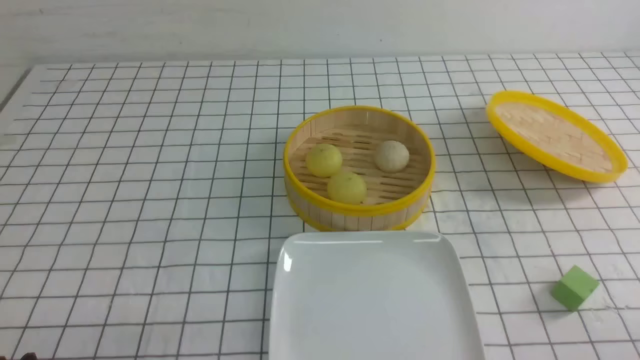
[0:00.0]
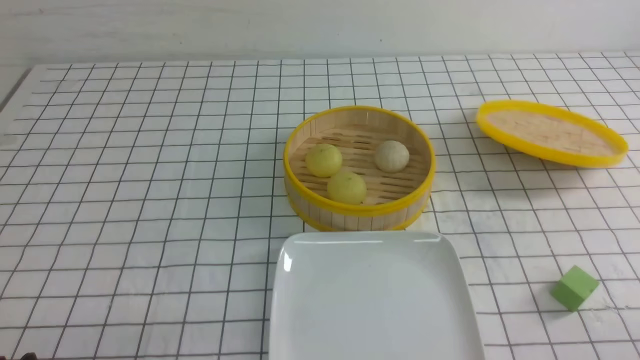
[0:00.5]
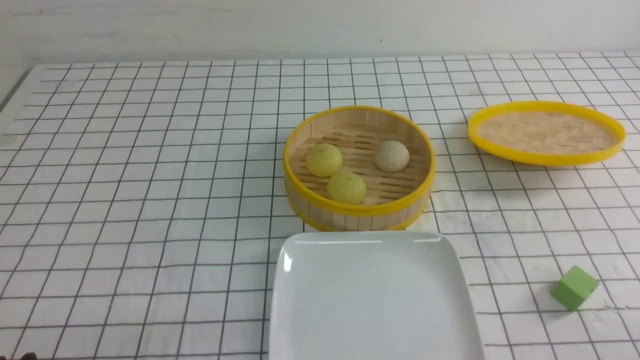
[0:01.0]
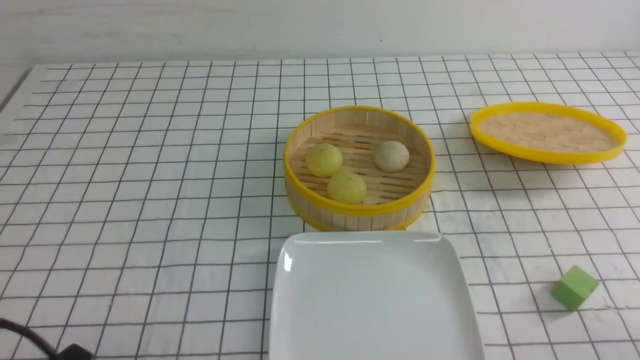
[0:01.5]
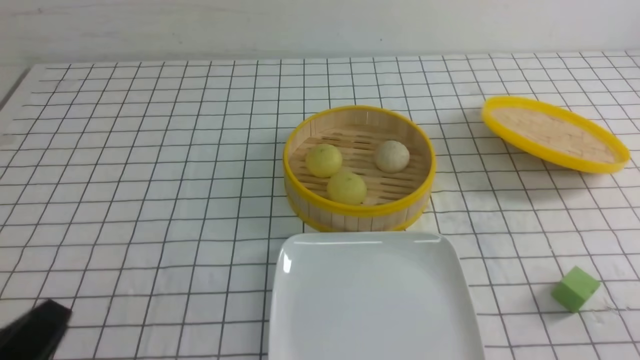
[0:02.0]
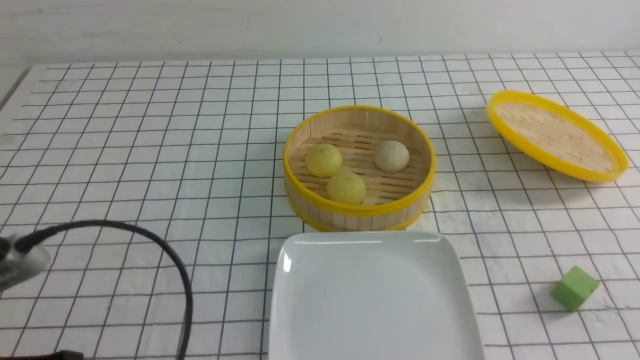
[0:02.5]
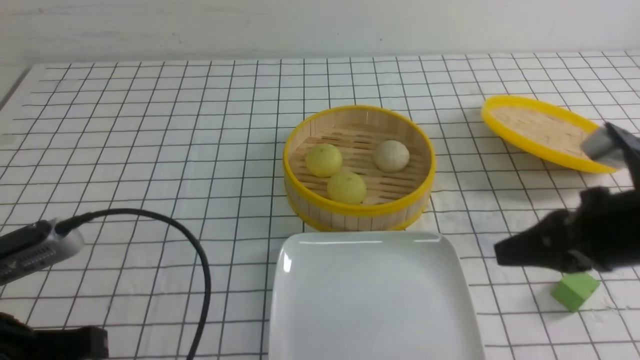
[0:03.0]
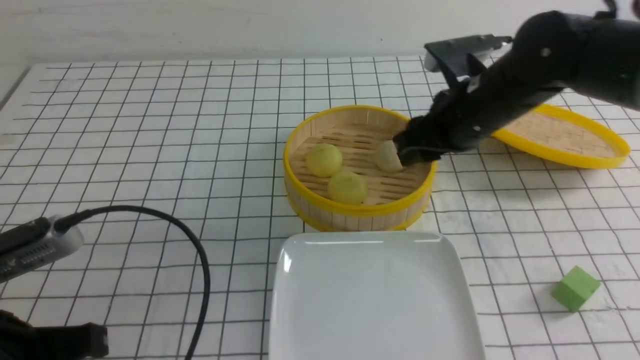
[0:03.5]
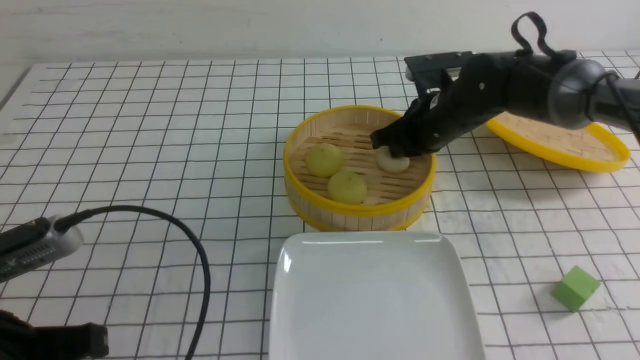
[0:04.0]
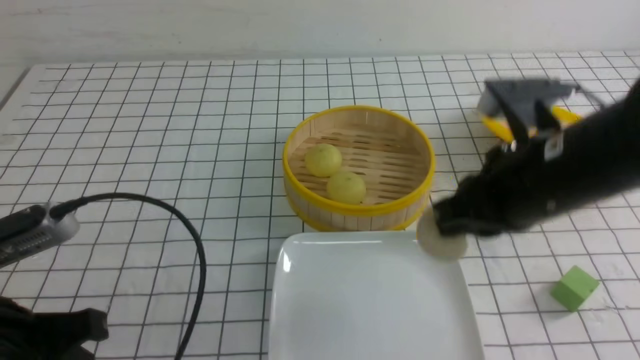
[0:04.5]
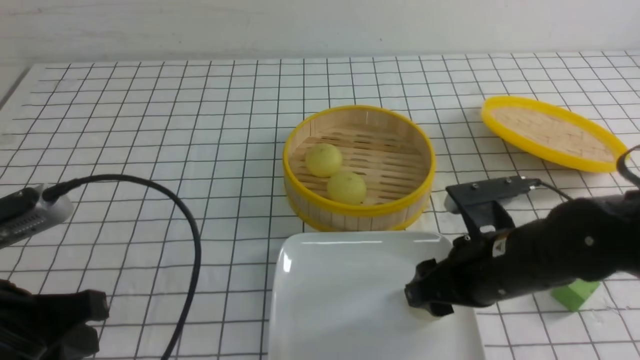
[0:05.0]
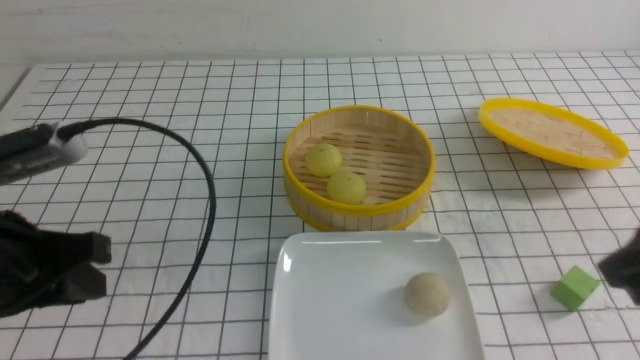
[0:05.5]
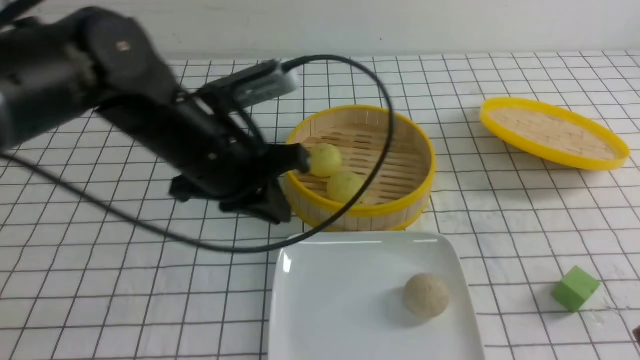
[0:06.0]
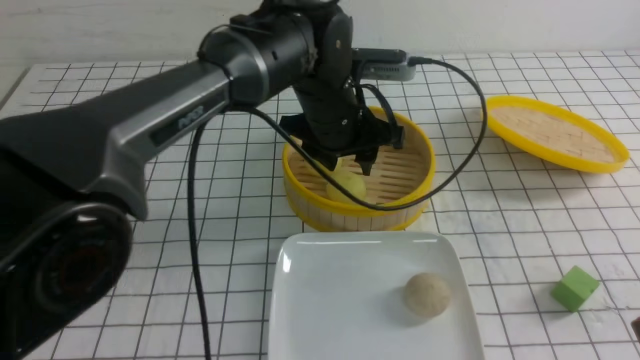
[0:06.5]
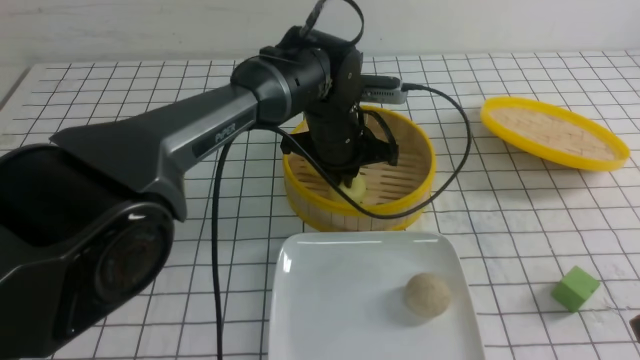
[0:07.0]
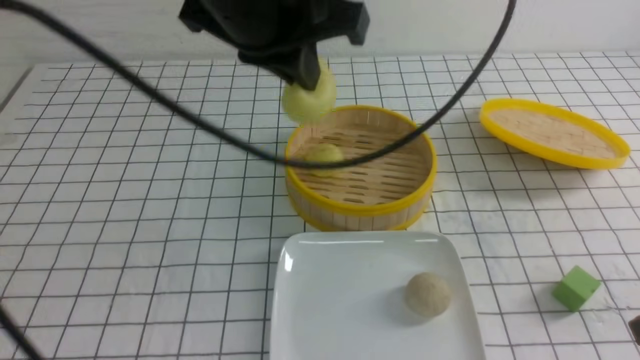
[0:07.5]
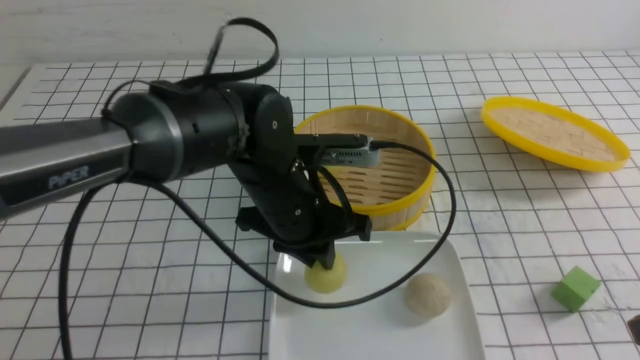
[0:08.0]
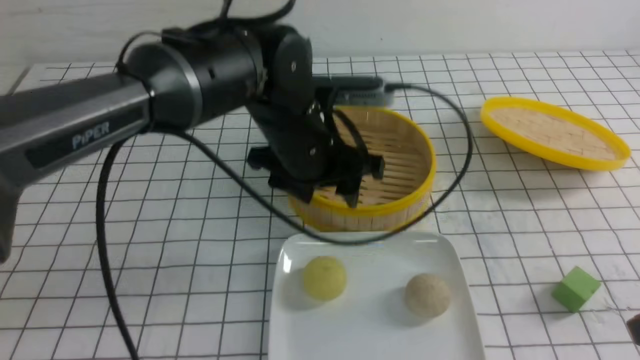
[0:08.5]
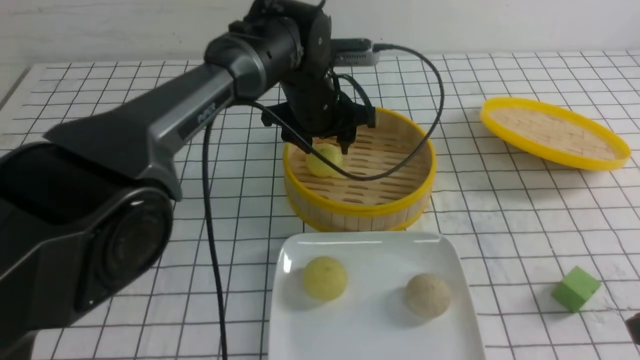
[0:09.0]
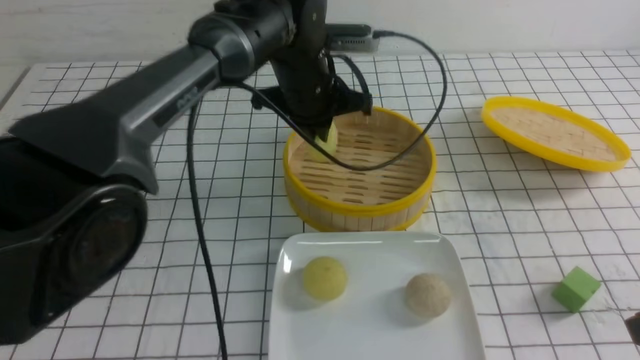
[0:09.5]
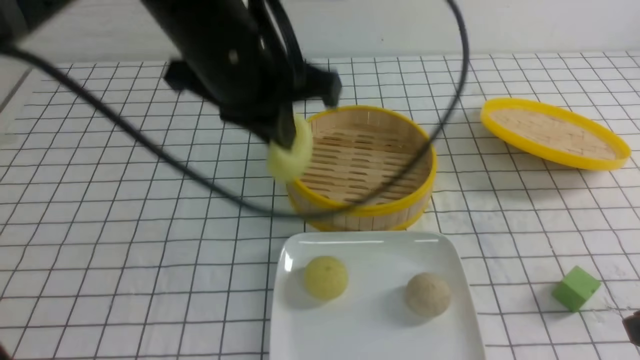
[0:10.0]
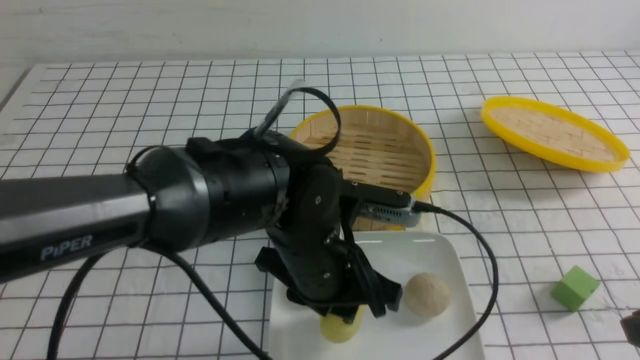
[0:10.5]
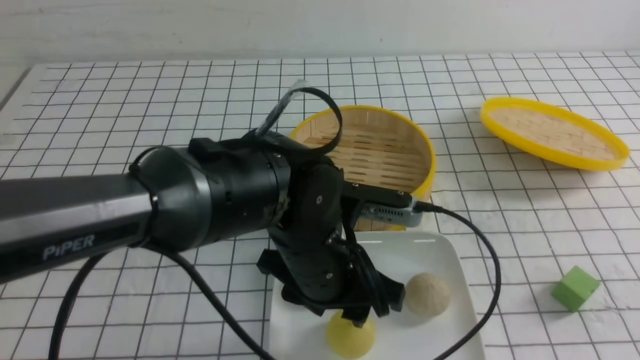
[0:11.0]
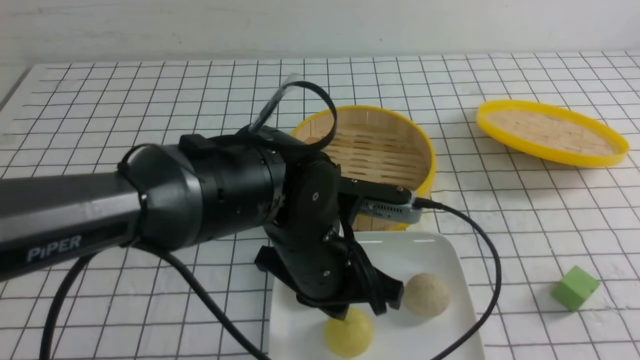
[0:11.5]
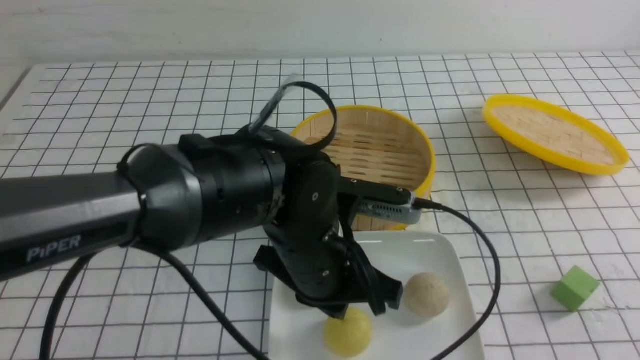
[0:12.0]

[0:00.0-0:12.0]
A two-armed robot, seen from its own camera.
Step, 0:00.0 to 0:03.5: use the right arm to grab the steamed stuffed bun that is closest to it.
Step, 0:04.5 to 0:05.0: use the right arm to put the steamed stuffed bun into the plate.
Step, 0:05.5 to 0:07.0: use the left arm to grab the steamed stuffed bun that is closest to it.
Step, 0:07.5 to 0:08.0: use the left arm to put the steamed stuffed bun into the plate.
Step, 0:08.5 to 0:09.0: use the left arm to grab the steamed stuffed bun that is closest to it.
Step, 0:09.5 to 0:10.5: use the left arm to put the steamed stuffed bun into the plate.
0:00.0 to 0:02.0: Both grippers move upward, approximately 5 cm. The right gripper closes.
0:02.0 to 0:04.0: The left gripper moves forward, some 10 cm. Meanwhile the right gripper moves forward and to the left, approximately 40 cm, and opens and closes again.
0:04.0 to 0:06.0: The left gripper shifts roughly 20 cm forward and to the right. The right gripper goes approximately 35 cm backward and to the right, and opens, then closes again.
0:06.0 to 0:08.0: The left gripper swings up and down, roughly 15 cm each way, with 2 reversals, and opens and closes again.
0:08.0 to 0:10.0: The left gripper shifts about 15 cm upward, travels forward and back again, some 15 cm each way, and closes.
0:10.0 to 0:12.0: The right gripper goes about 10 cm backward; the left gripper goes roughly 15 cm downward and backward, and opens, then closes once more.

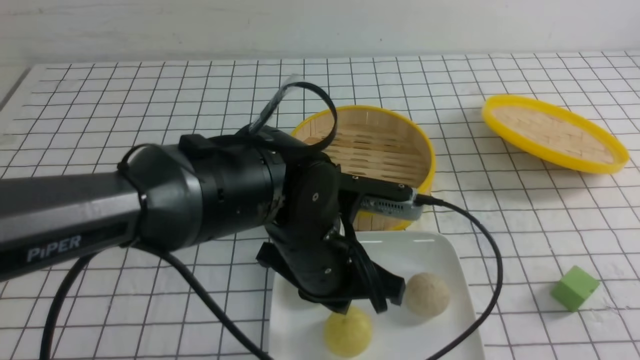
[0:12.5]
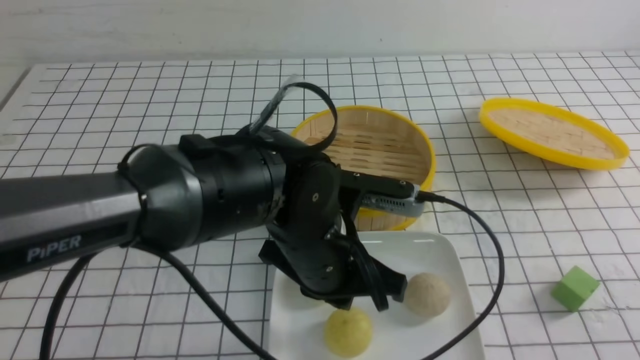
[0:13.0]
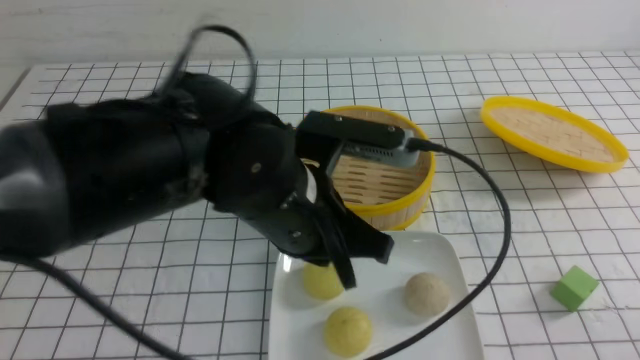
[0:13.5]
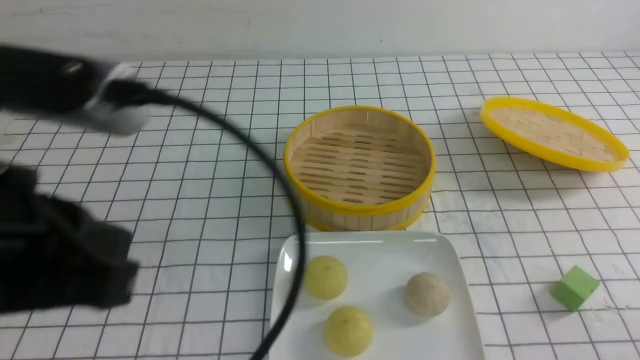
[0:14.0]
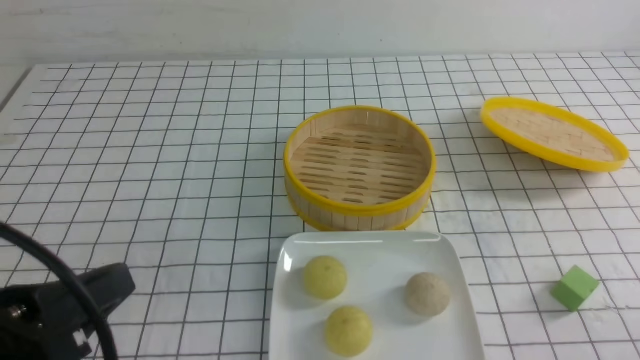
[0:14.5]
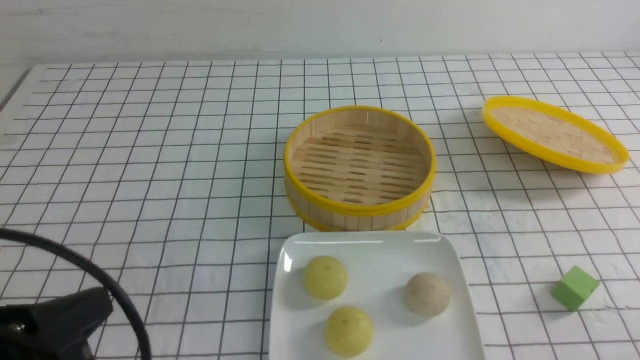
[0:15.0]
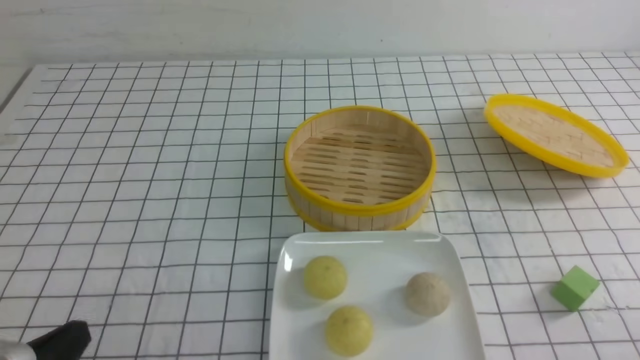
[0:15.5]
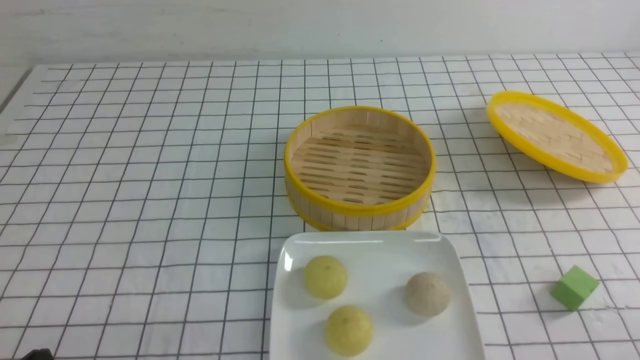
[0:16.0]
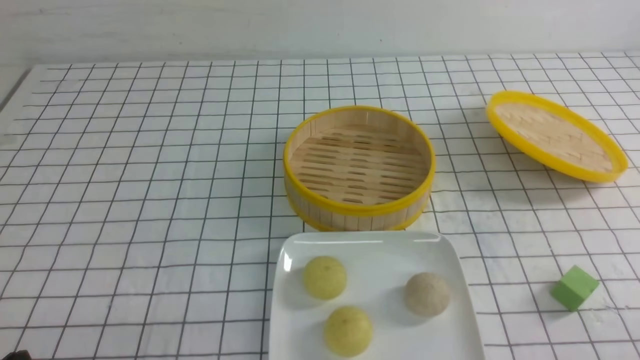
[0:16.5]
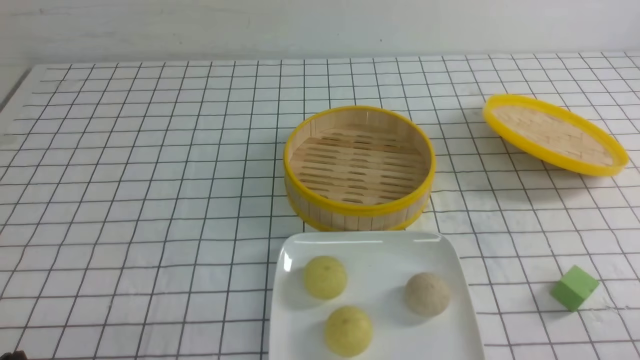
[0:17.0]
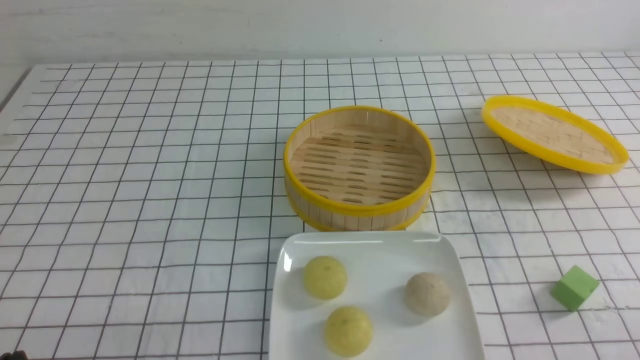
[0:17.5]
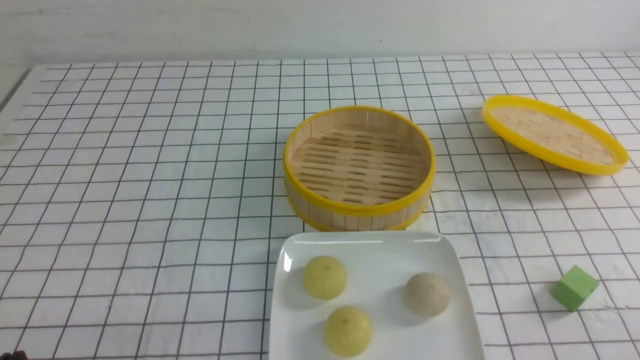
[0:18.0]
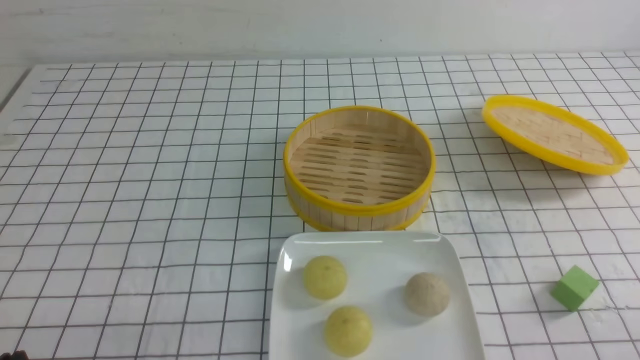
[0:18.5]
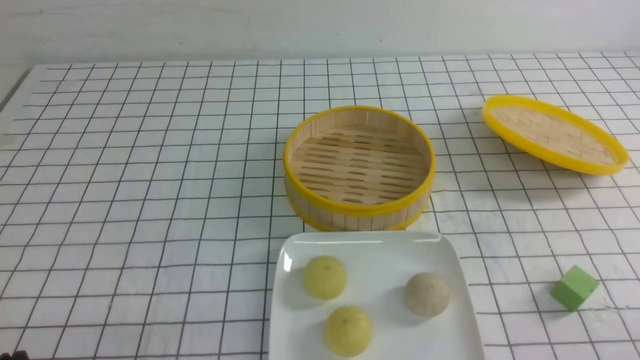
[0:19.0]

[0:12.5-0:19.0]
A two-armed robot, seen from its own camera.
0:12.5 to 0:14.5: The left gripper goes approximately 25 cm to the left, backward and upward; the right gripper goes about 10 cm downward.
0:14.5 to 0:17.0: The left gripper is displaced downward and to the left by roughly 15 cm.
0:17.0 to 0:19.0: Both grippers stay put.
